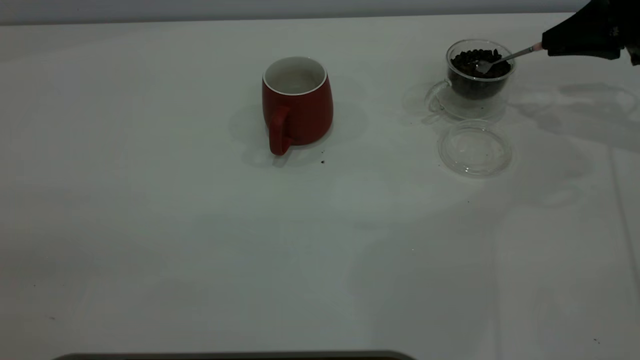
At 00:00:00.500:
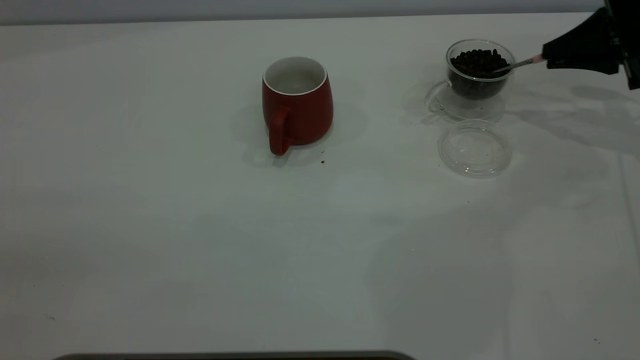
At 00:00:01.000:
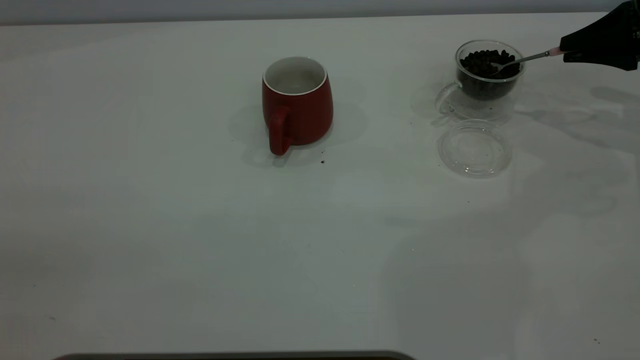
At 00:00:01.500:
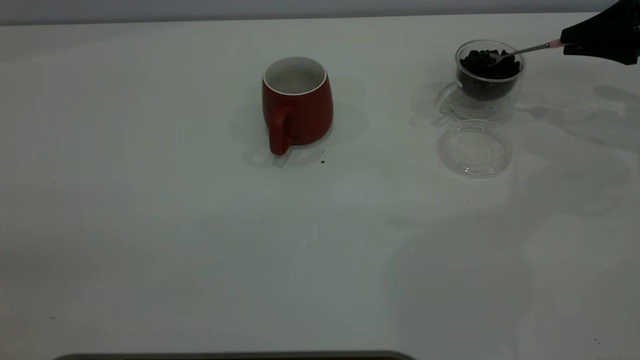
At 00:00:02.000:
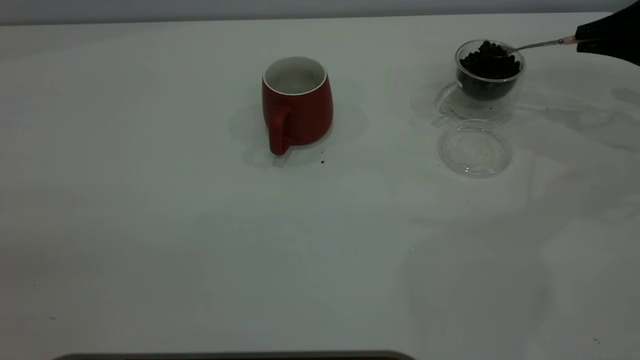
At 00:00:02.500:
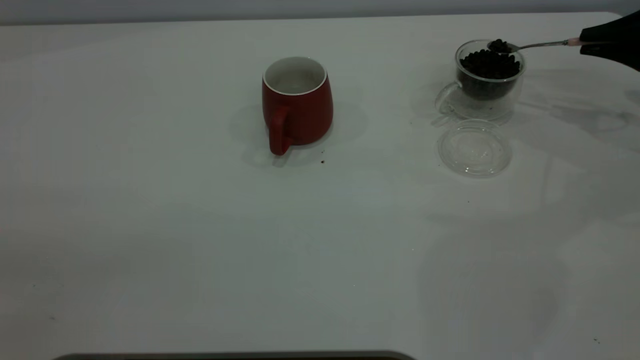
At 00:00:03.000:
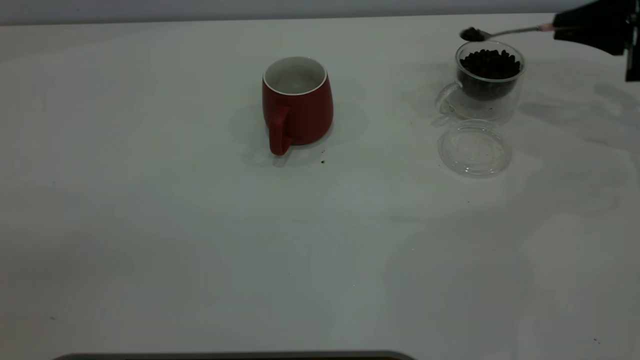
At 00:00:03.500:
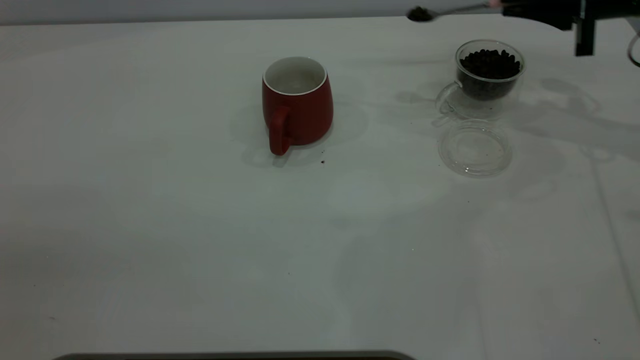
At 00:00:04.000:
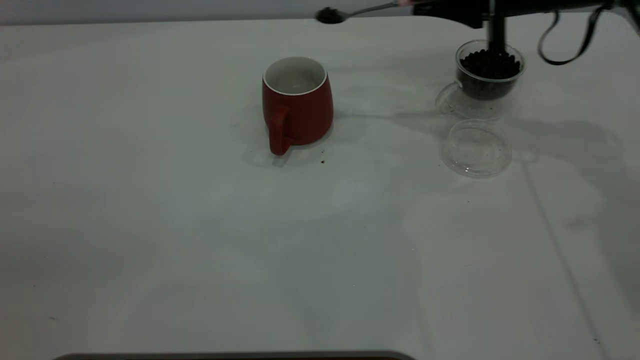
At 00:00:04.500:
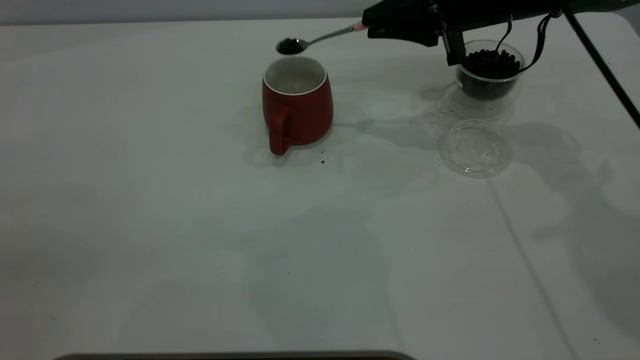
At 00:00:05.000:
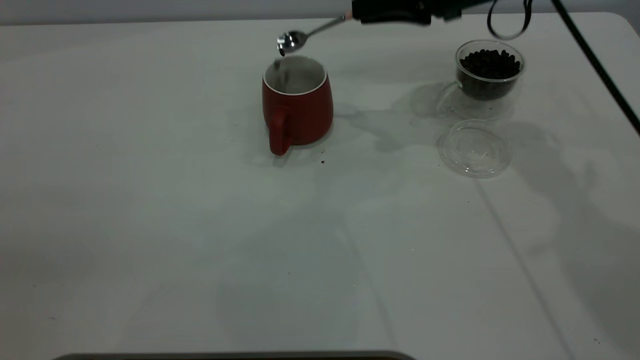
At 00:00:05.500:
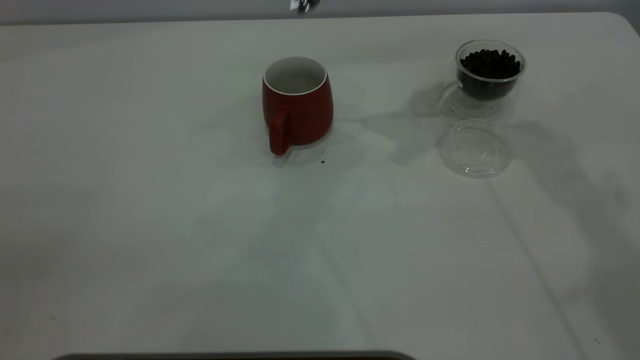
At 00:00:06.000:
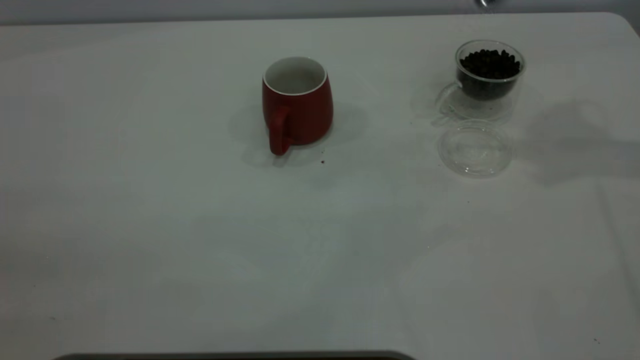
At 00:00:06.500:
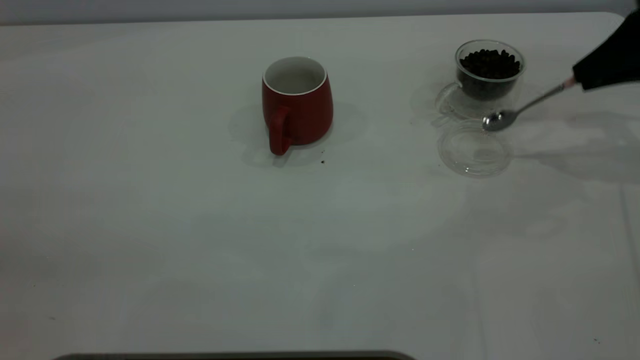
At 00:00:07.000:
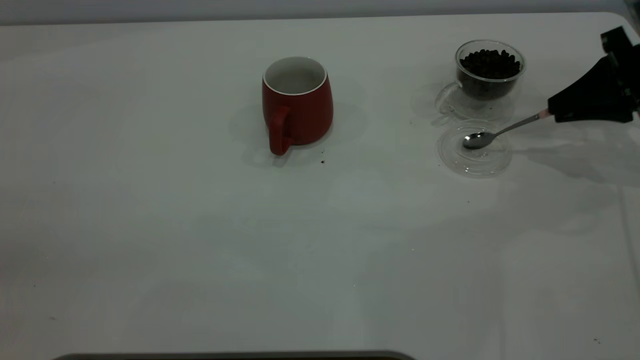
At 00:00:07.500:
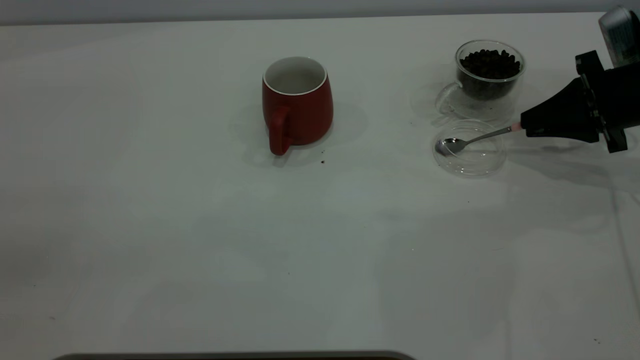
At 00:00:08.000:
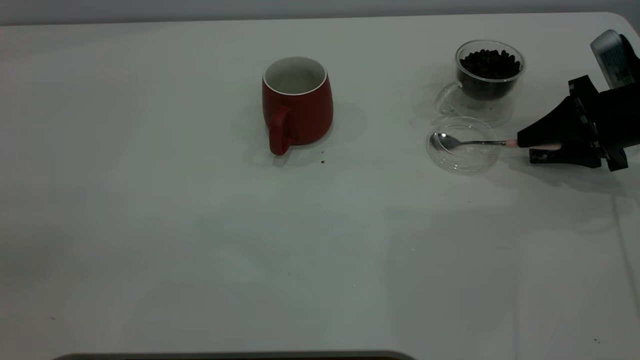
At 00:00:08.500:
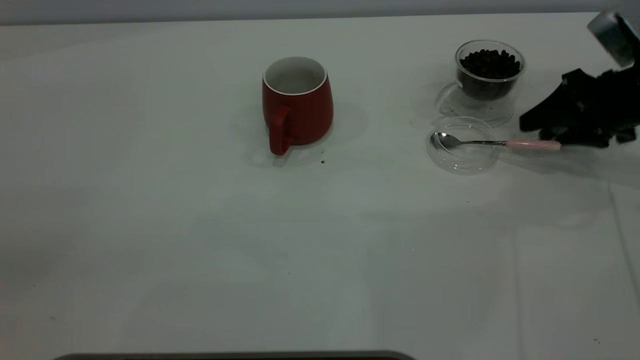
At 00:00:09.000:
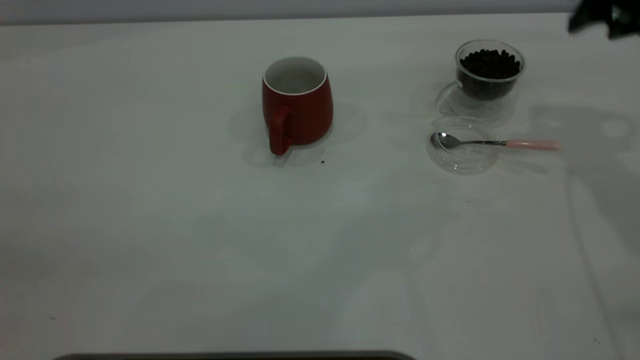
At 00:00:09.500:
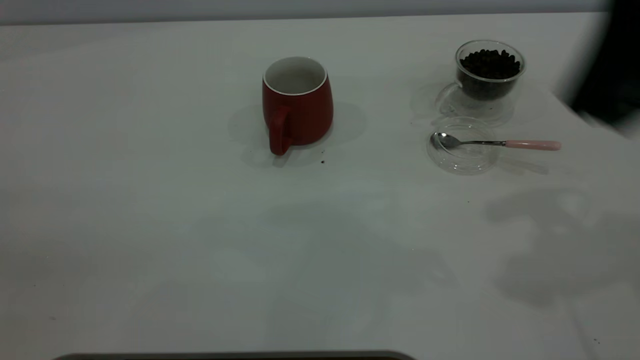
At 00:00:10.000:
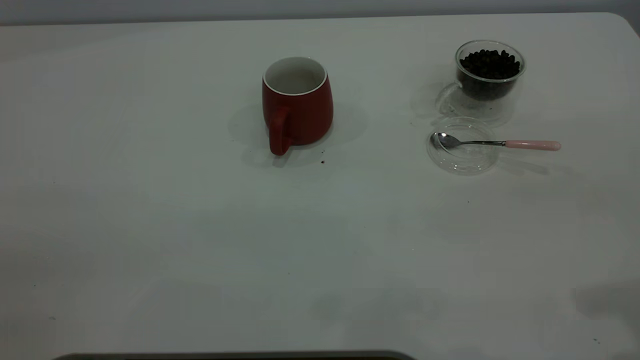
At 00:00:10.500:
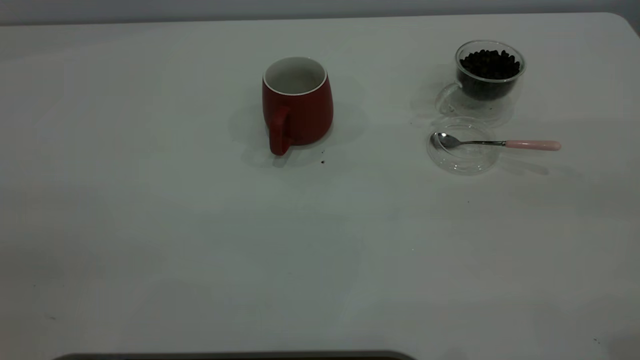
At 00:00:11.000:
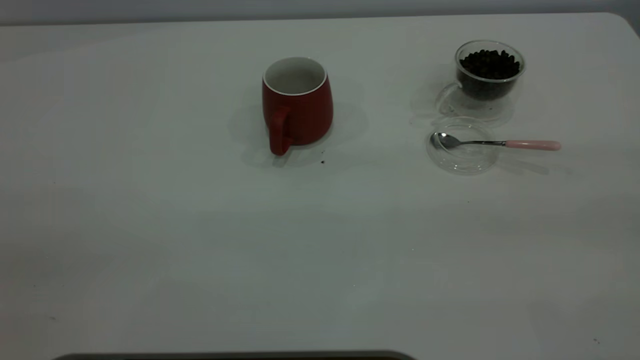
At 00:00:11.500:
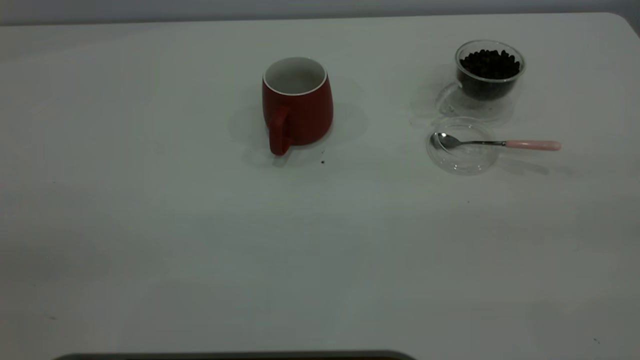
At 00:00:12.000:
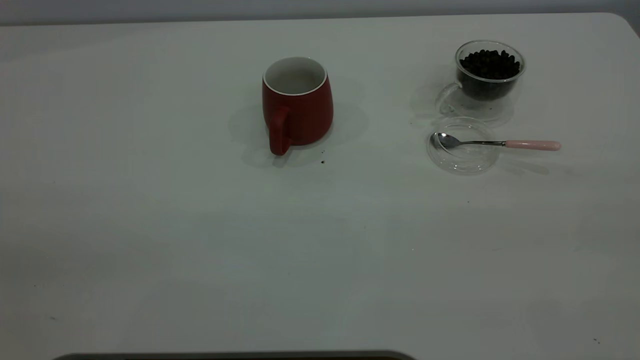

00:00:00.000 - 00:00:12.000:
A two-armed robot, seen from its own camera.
Task of the whole recording: the left gripper place the red cup in the center of the table, the right gripper take the pink spoon from the cup lid and scoop out the coffee beans from the coffee cup and put them into the red cup, the right gripper put the spoon back into the cup lid.
Step, 00:00:00.000 - 00:00:05.000: Scoop a spoonful of beans into the cup.
Step, 00:00:05.500 - 00:00:08.500: Place the spoon back in its original place.
00:00:02.000 - 00:00:04.000: The right gripper shifts about 20 cm to the left.
00:00:04.000 - 00:00:06.000: The right gripper is displaced upward, to the right and backward by approximately 20 cm.
00:00:06.000 - 00:00:08.000: The right gripper goes about 25 cm downward, and opens up.
00:00:08.000 - 00:00:10.000: The right gripper travels upward and backward by some 35 cm.
